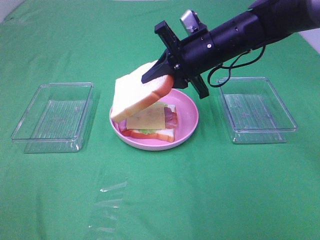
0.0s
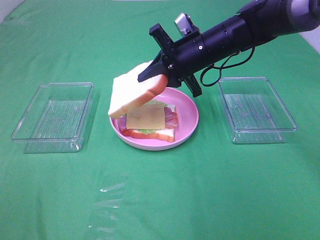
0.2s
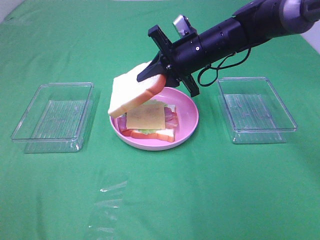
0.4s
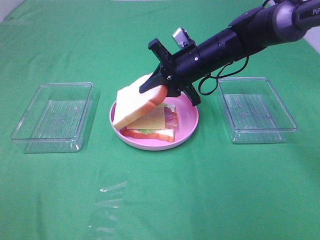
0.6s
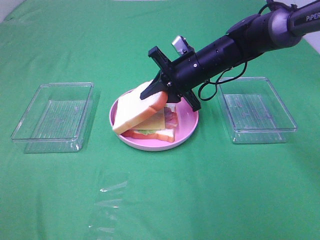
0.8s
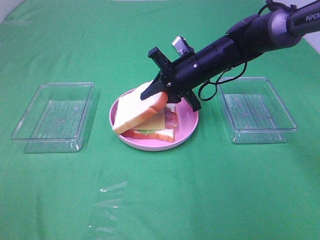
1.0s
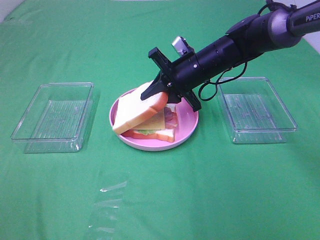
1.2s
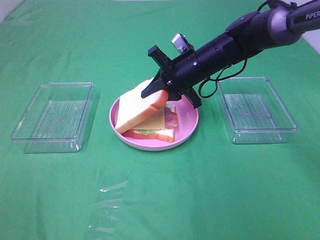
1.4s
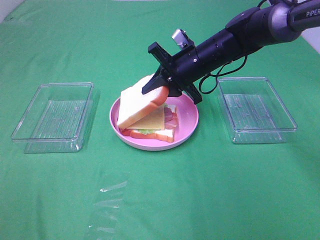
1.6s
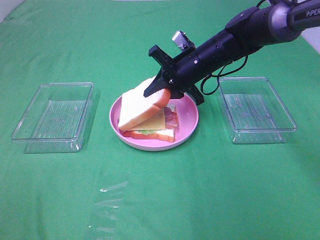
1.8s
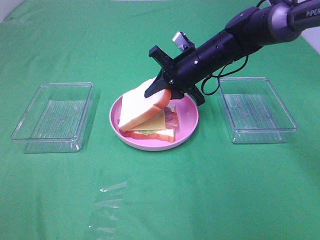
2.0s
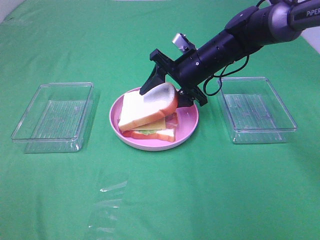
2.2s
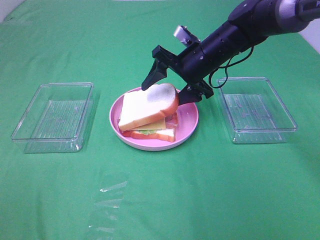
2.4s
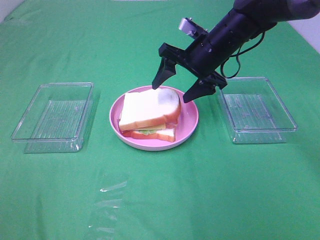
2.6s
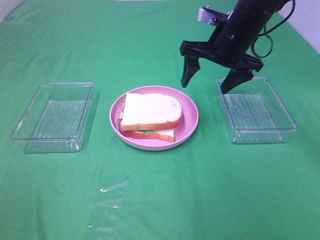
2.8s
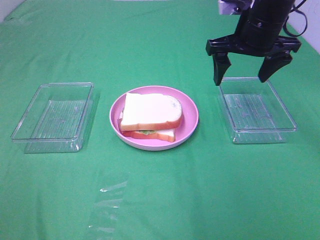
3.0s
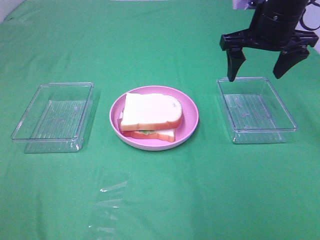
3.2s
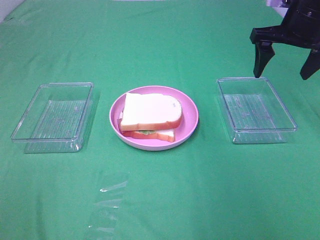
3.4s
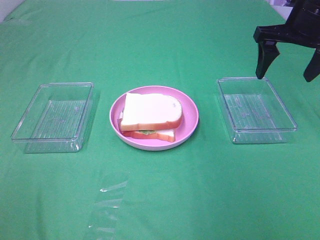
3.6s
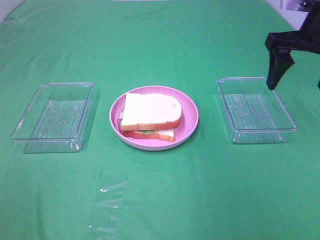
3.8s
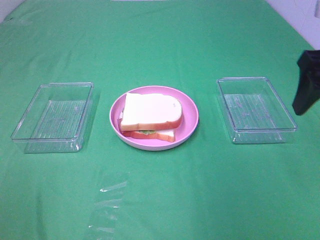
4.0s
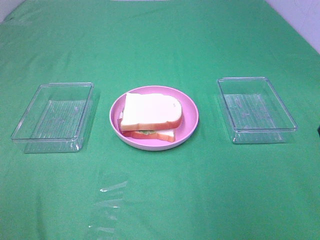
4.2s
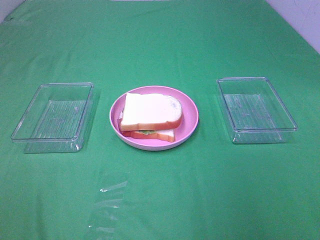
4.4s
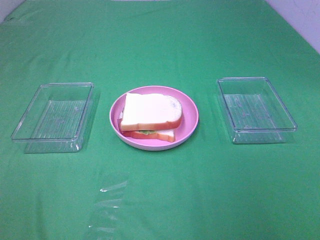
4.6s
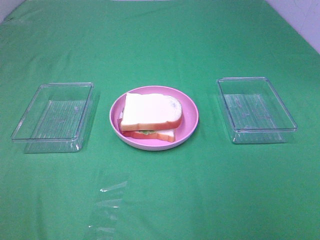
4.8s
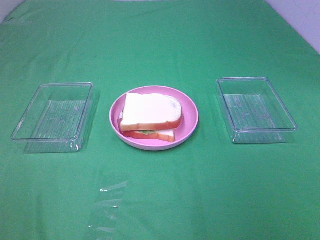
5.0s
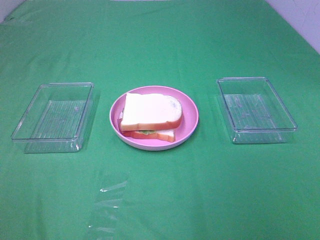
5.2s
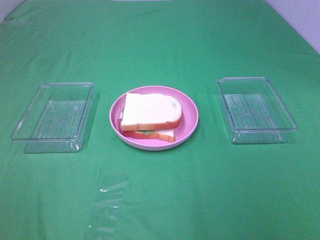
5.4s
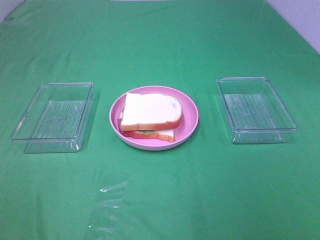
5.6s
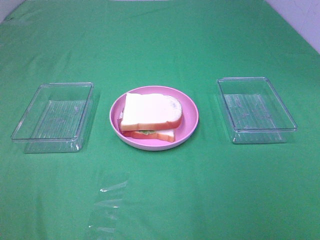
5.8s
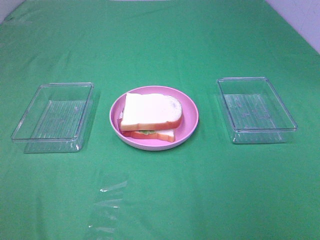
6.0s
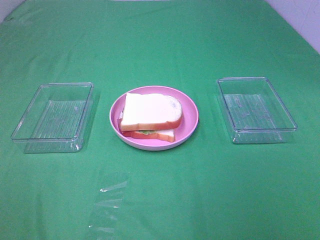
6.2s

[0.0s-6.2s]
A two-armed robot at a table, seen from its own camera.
Task of the whole recording: Make sandwiches.
Step, 0.0s to 2.6s: Right hand:place the bread slice on the cheese slice.
0.0s to 1.6s: The right gripper ends up roughly 5 cm from where it was.
1.6s to 3.2s: The right gripper travels upward and to the right by about 15 cm, and opens its fingers.
3.2s to 4.6s: The right gripper heads backward, covering roughly 35 cm.

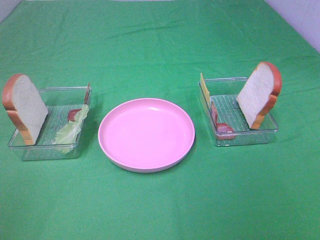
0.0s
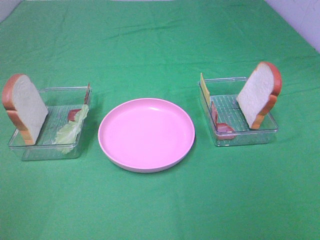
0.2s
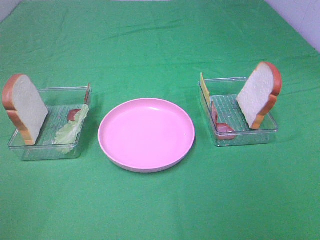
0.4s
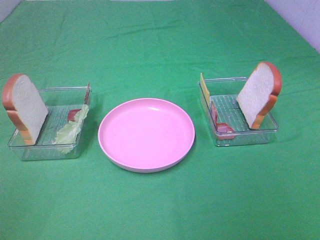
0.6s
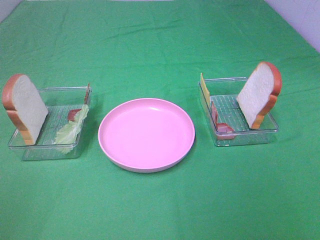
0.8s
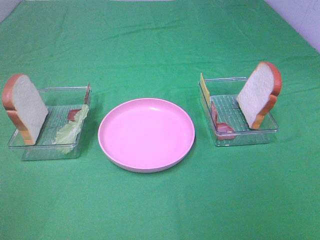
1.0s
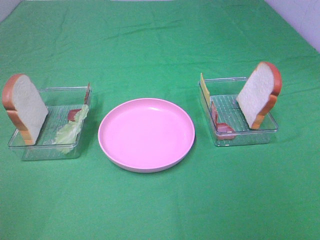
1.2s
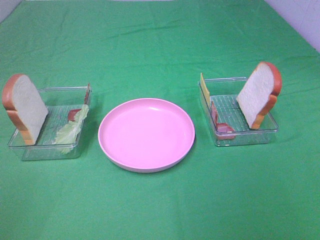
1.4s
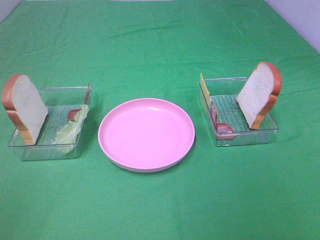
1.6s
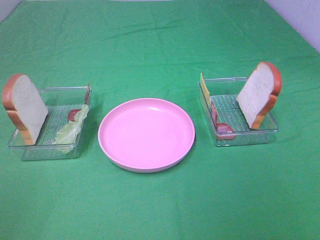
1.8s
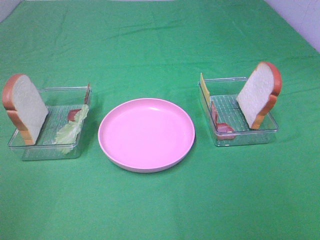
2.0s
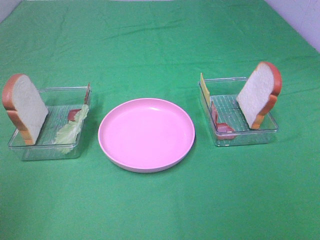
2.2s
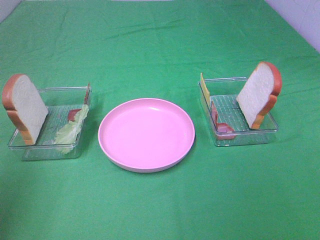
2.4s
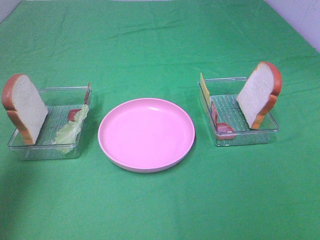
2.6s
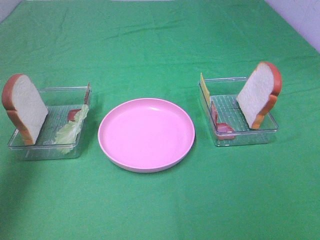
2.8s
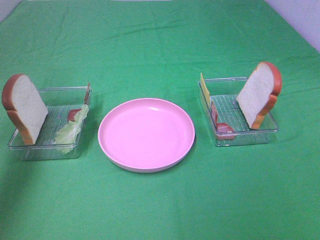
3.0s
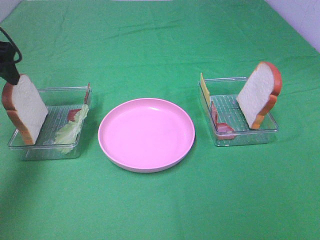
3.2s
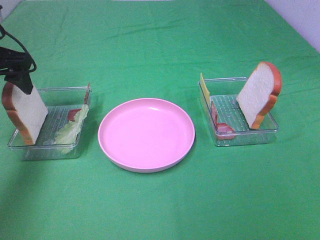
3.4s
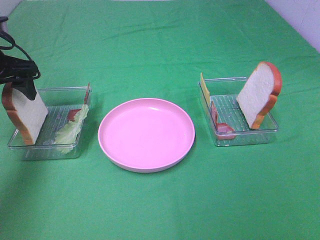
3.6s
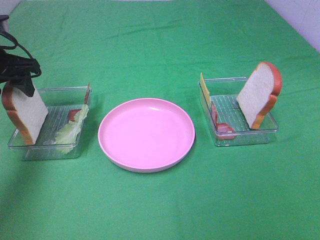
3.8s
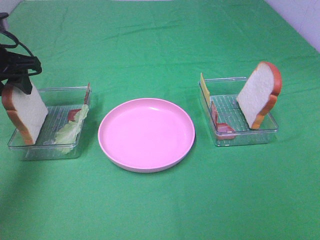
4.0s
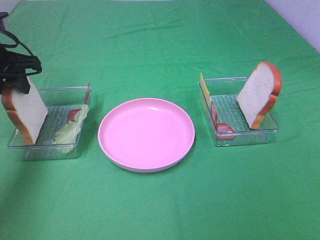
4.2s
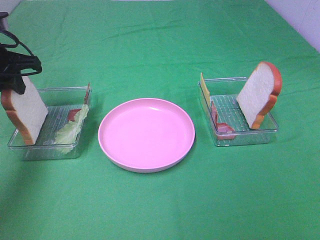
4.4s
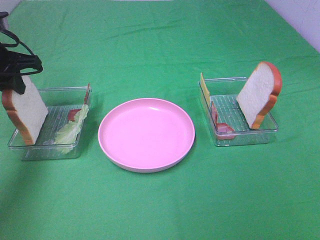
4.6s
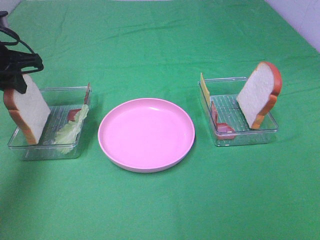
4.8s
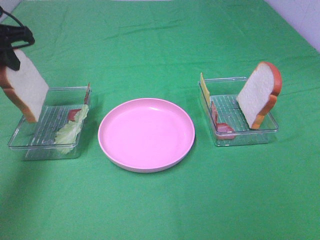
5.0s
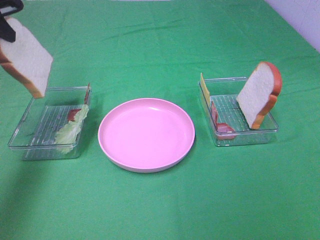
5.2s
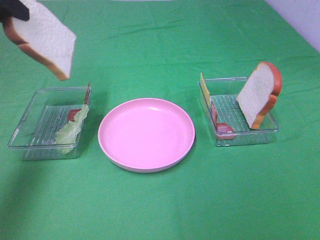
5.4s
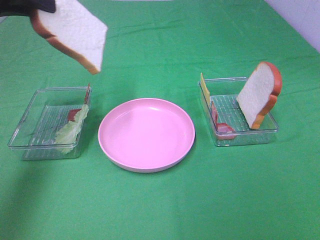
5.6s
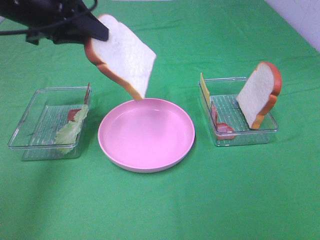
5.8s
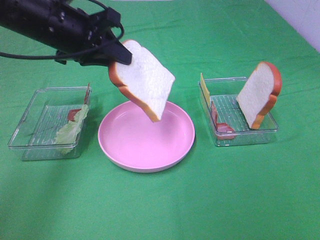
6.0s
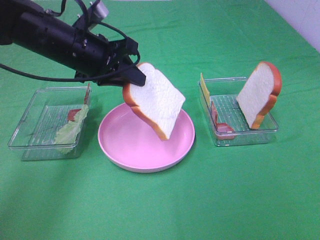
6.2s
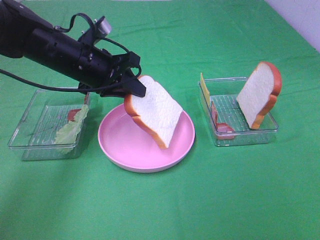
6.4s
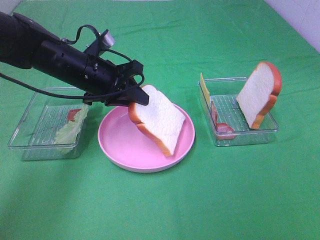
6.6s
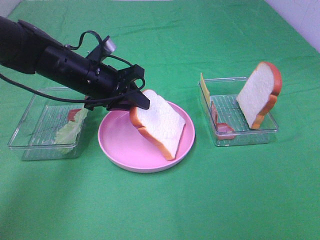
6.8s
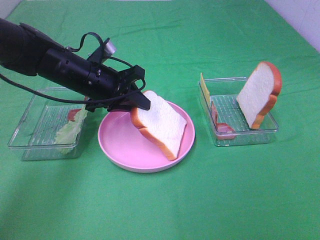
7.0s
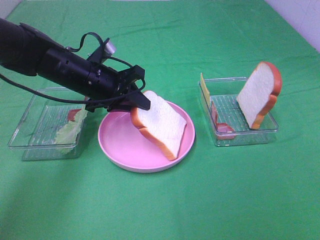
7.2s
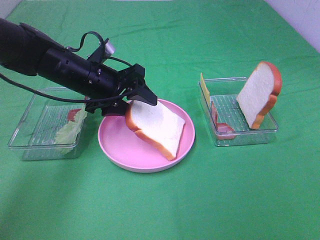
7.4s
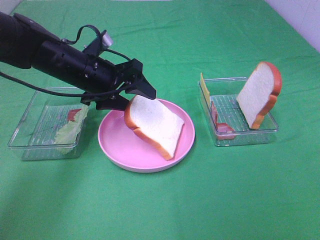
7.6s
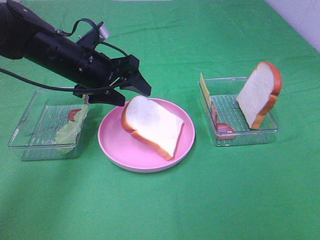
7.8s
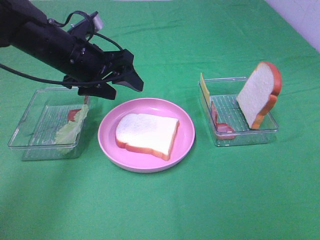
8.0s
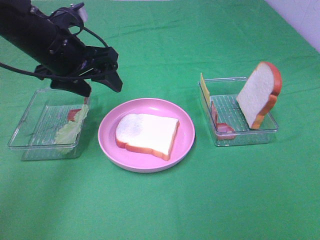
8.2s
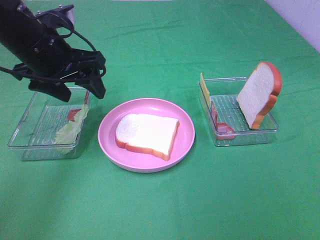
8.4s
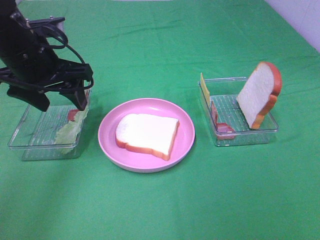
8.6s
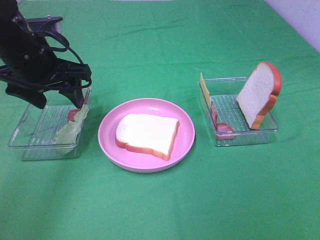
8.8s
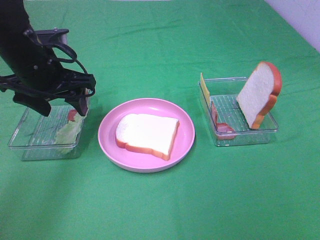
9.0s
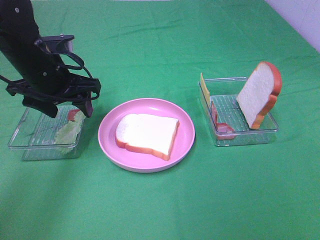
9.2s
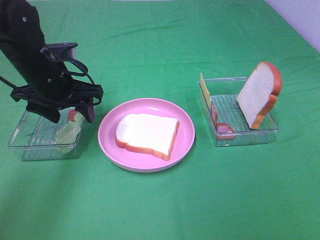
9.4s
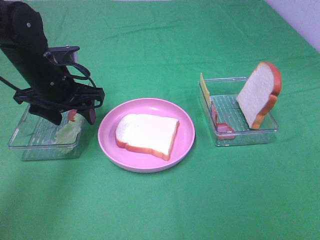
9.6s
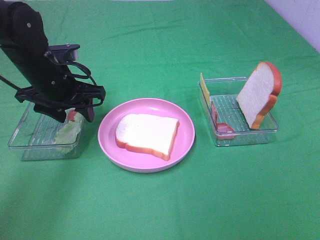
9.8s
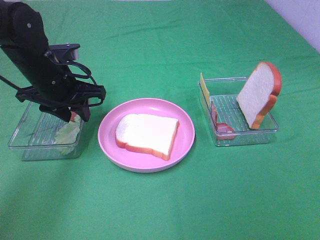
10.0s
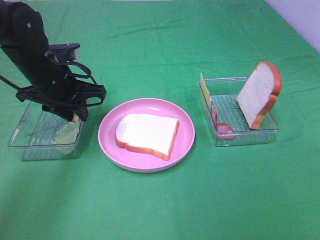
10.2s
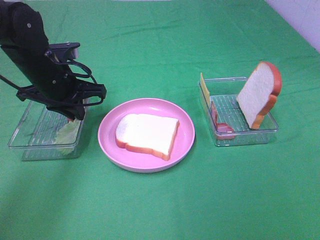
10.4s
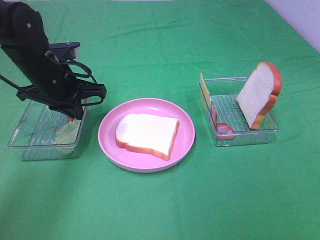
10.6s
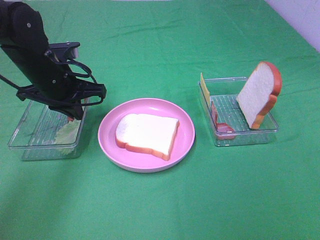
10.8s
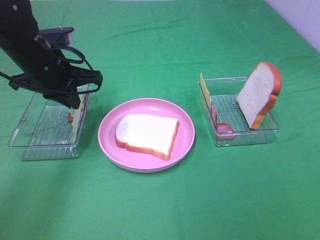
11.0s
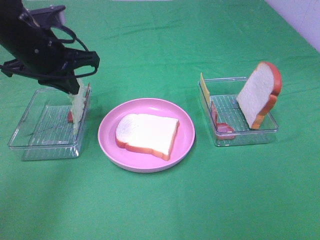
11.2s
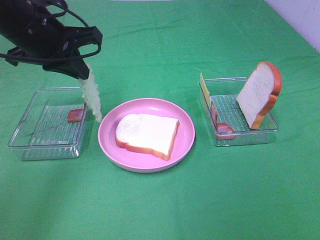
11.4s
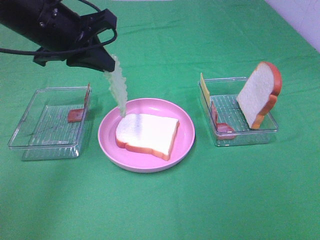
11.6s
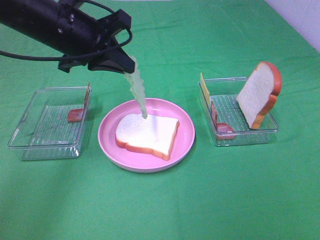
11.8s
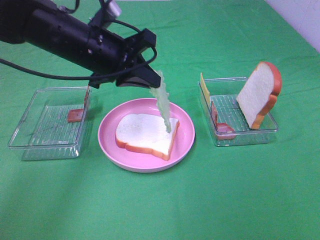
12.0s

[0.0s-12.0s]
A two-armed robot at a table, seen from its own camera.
Task of the whole recording: Make sandwiches.
Step, 0.0s to 4.6s: Left hand:grab the bread slice.
Step, 4.8s to 7.8s: Left hand:place the bread slice on the plate.
Step, 8.0s to 10.8s: Left hand:grab the lettuce slice.
0.0s to 1.6s: Both grippers stay about where they are.
1.6s to 3.0s: The left gripper heads forward, covering about 30 cm.
3.0s to 4.4s: The left gripper travels downward and forward by roughly 10 cm, and closes its fingers.
4.4s to 6.0s: The left gripper is displaced to the right by some 15 cm.
6.0s to 7.6s: The left gripper goes about 10 cm downward, and opens.
7.6s to 9.0s: The left gripper shifts some 5 cm to the left.
9.0s to 10.4s: The left gripper closes.
10.4s to 12.0s: The left gripper travels to the right and upward by roughly 10 cm.

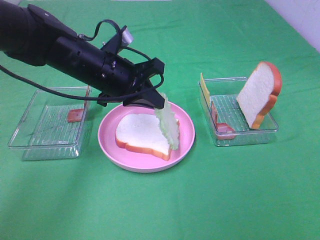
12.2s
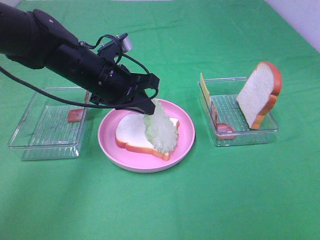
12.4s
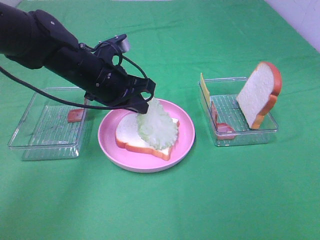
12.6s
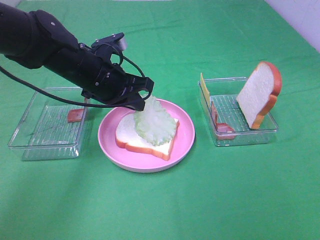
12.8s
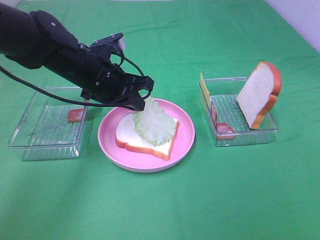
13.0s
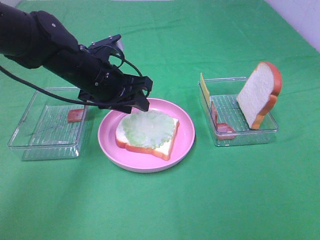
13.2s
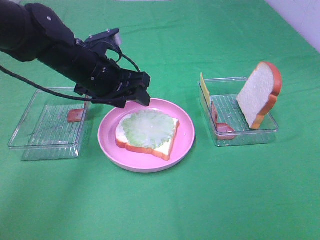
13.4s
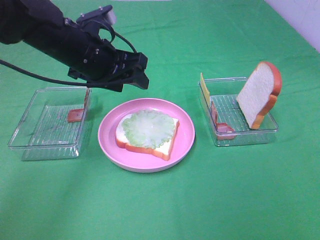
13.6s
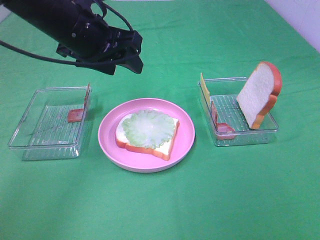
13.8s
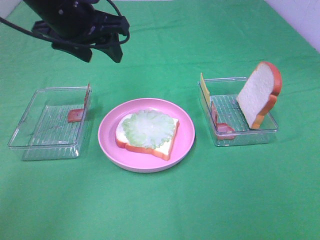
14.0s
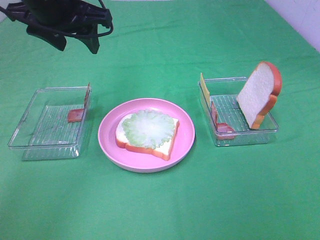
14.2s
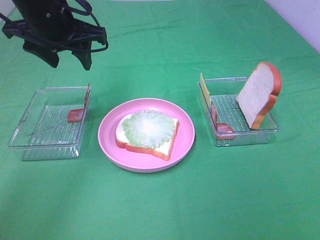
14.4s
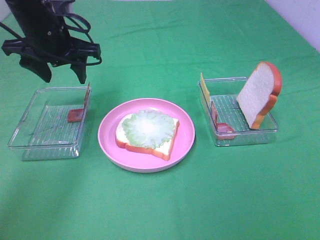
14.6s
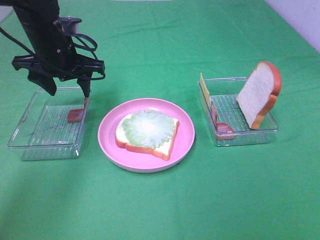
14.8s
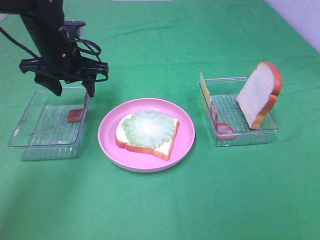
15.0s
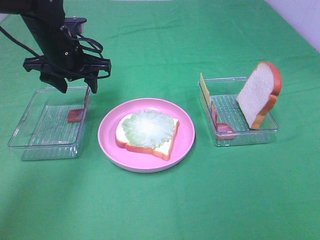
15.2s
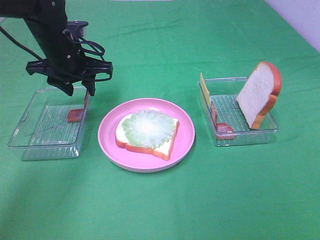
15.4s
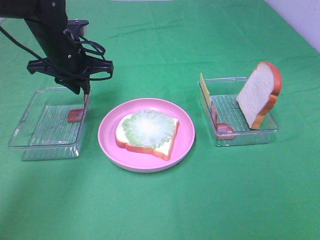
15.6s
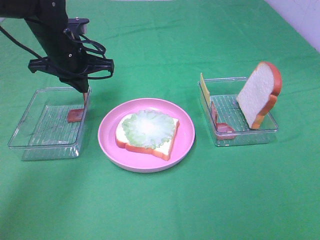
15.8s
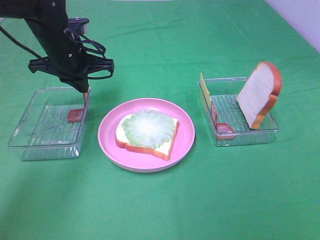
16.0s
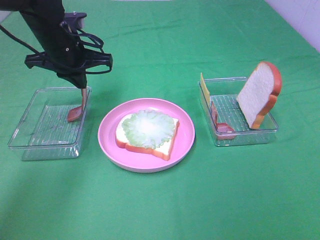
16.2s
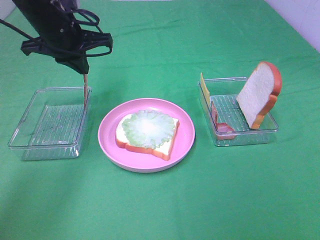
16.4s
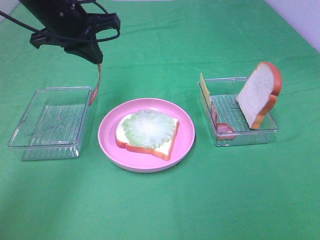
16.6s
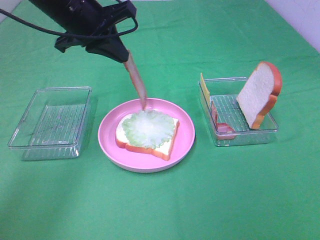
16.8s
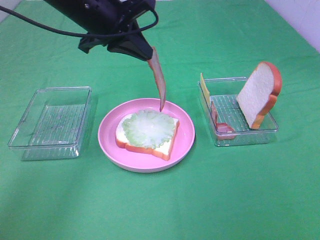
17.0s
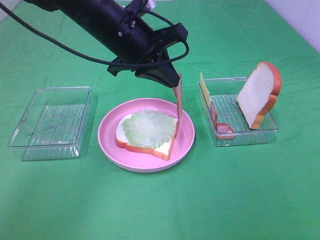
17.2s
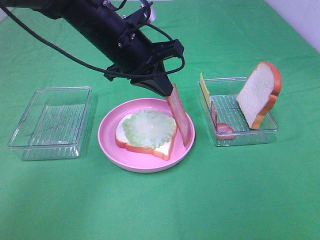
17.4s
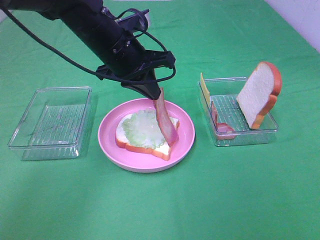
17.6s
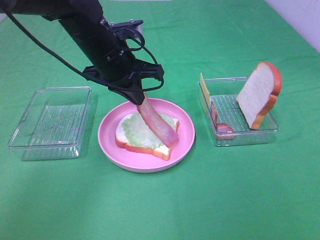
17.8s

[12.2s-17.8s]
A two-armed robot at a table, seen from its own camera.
Task of the whole recording: Make sandwiches.
Step, 13.6s to 16.0s: Left hand:grab the bacon.
12.2s to 13.6s: The left gripper opens.
13.6s to 15.0s: The left gripper shifts approximately 10 cm forward and to the left, and goes upward and returns, approximately 10 cm each way.
15.0s to 16.4s: The left gripper heads upward, covering approximately 5 cm, and closes up.
16.4s to 17.8s: The left gripper travels to the right by about 10 cm.
